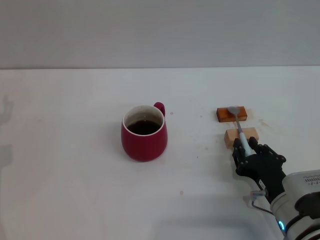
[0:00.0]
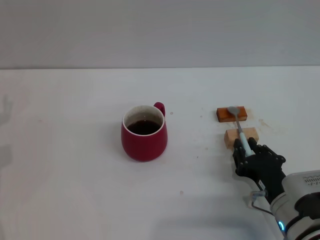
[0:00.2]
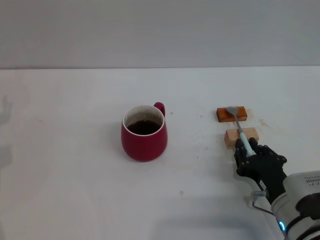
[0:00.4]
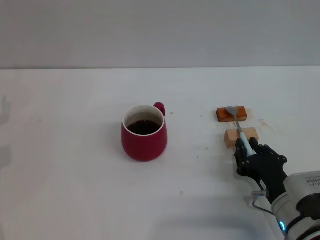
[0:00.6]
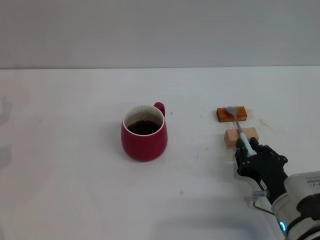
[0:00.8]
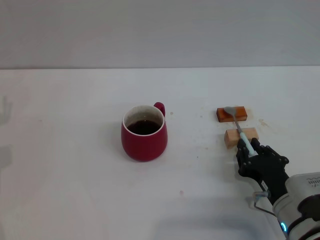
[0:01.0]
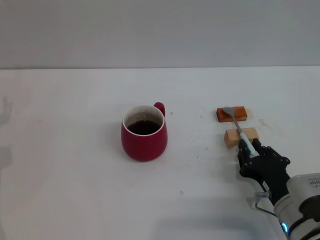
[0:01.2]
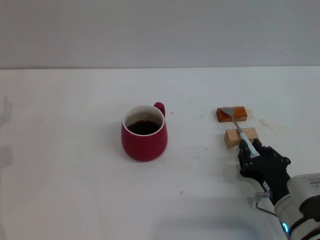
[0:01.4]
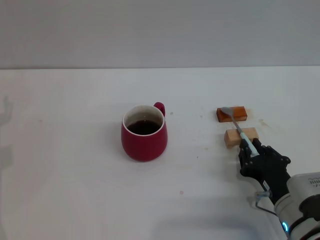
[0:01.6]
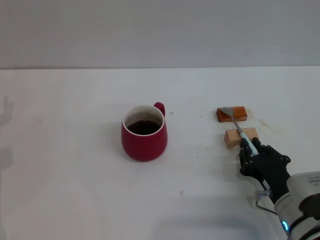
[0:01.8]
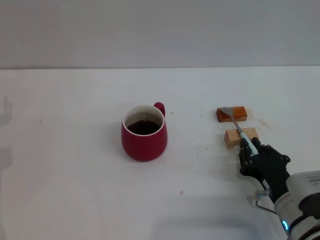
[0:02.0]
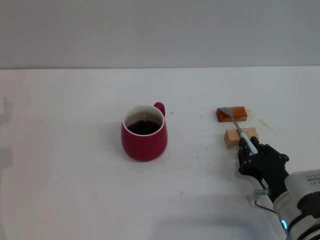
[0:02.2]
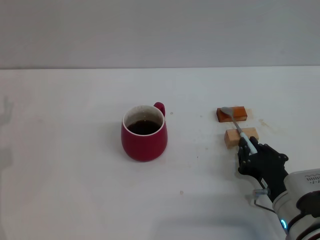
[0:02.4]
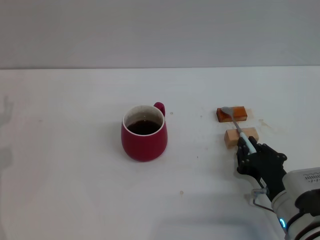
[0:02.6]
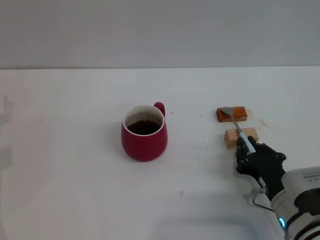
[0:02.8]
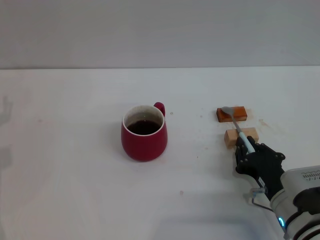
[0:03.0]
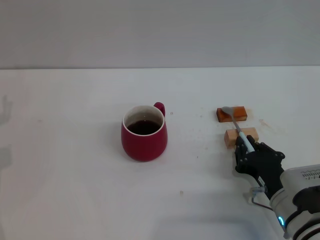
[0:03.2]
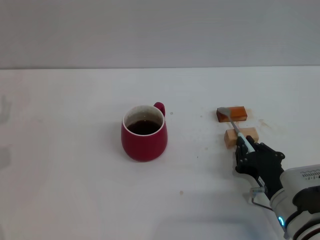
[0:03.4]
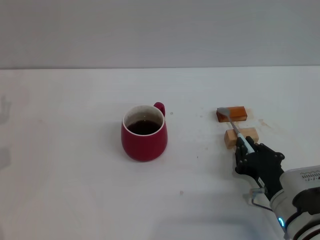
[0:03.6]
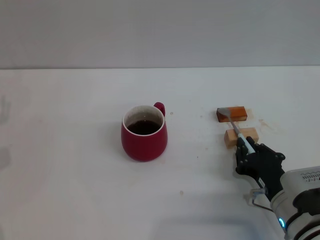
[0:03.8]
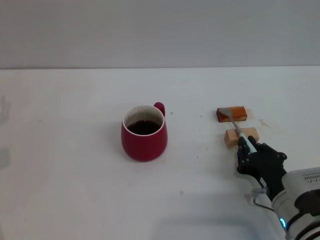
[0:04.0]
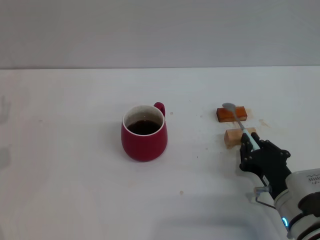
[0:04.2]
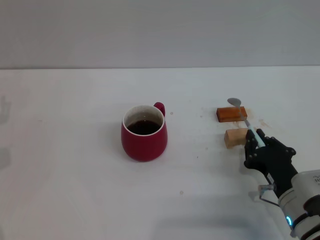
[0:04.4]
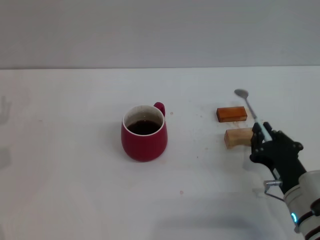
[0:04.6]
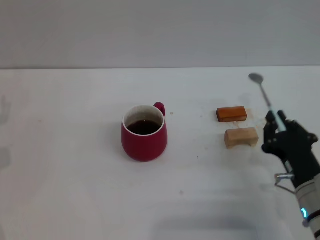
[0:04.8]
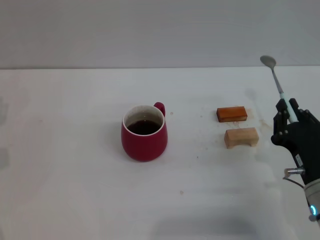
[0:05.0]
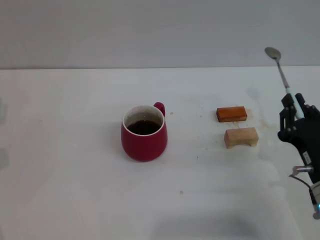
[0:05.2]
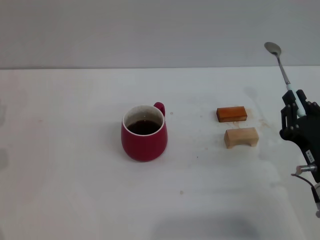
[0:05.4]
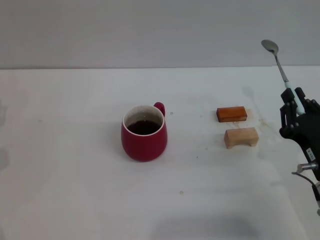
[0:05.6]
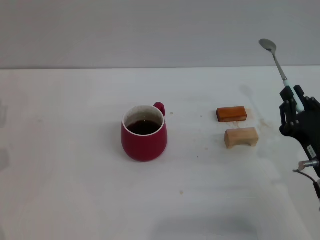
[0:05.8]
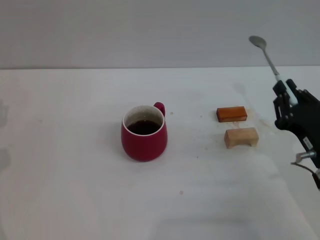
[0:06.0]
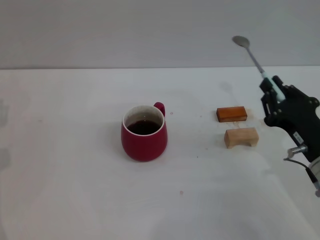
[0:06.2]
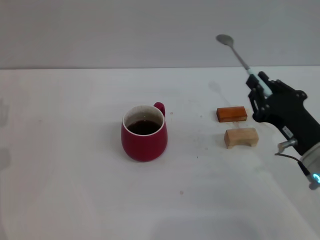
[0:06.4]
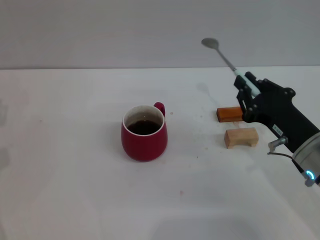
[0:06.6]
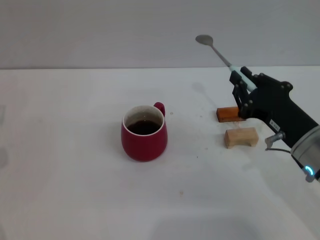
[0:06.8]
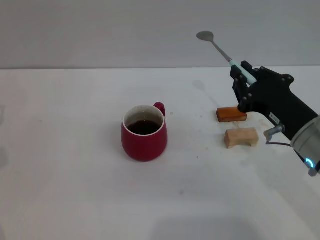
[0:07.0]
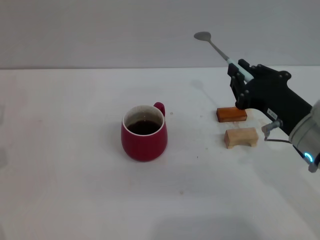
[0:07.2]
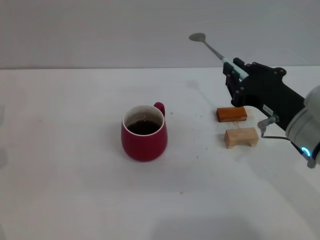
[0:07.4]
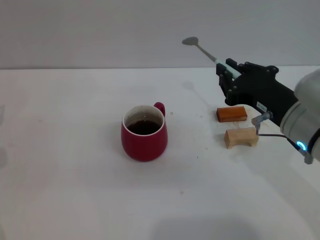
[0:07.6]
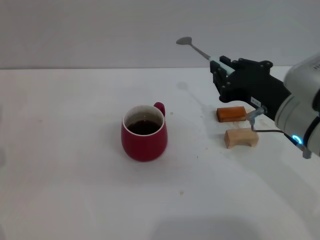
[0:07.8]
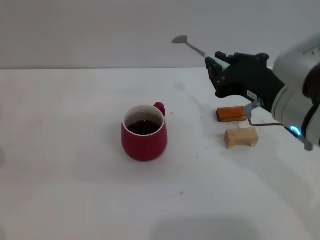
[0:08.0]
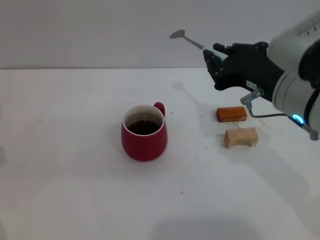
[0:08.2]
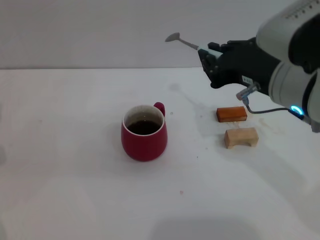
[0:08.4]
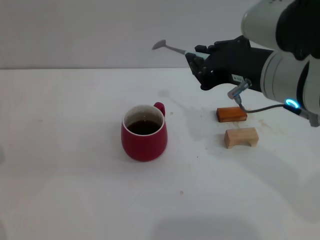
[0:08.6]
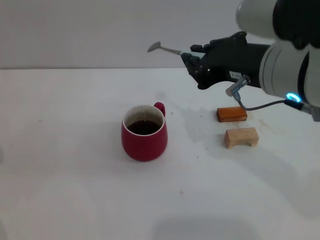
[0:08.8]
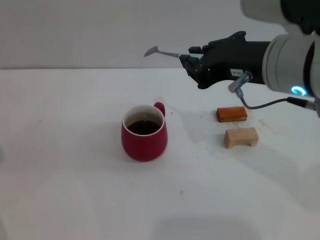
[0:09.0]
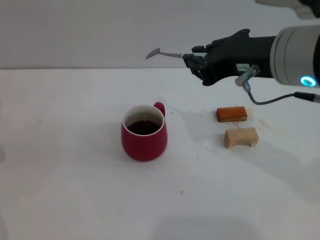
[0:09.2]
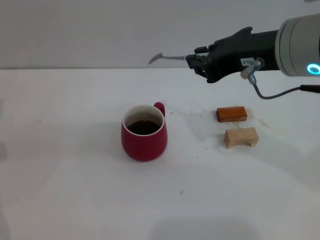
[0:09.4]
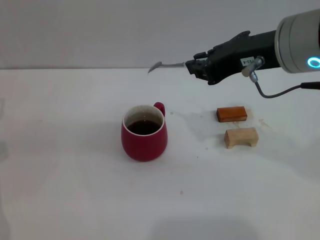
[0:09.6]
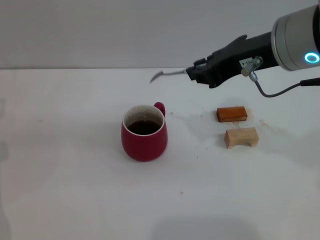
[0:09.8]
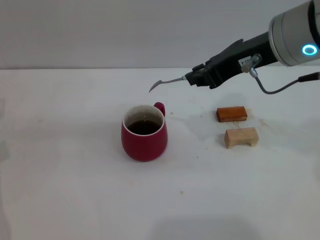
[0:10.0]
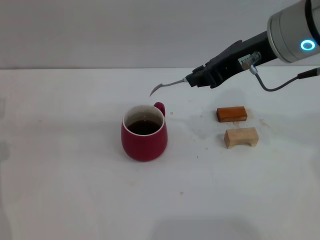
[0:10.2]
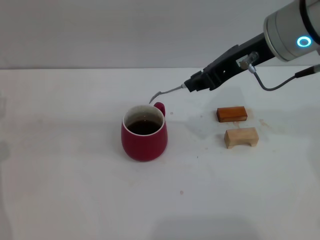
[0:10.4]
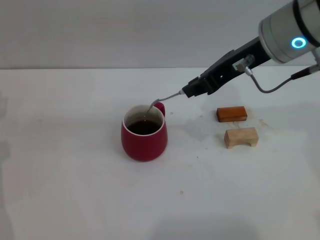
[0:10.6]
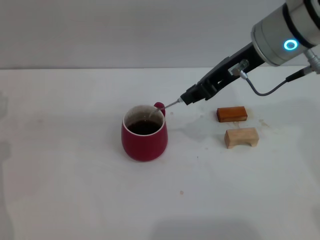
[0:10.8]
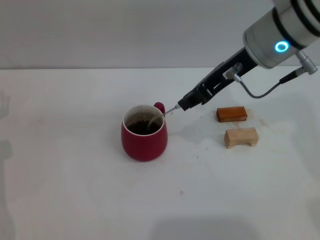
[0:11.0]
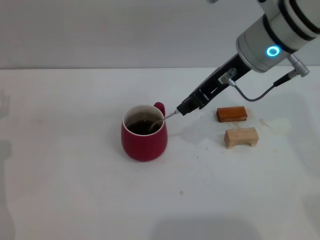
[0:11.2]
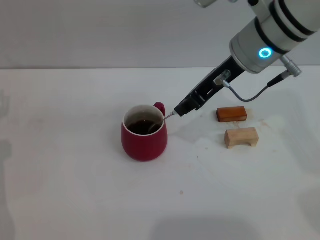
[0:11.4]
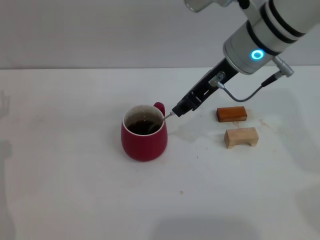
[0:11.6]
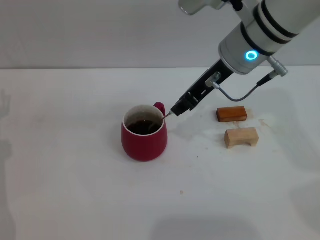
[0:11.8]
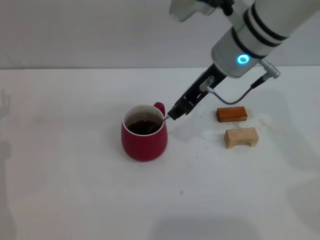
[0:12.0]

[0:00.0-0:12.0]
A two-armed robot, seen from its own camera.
Task of the whole recording: Move the red cup to the center, lift the blue spoon, stir it three times in the cup, and put the spoon into the cup.
Step, 0:00.0 to 0:03.8: Grasp the spoon with right gripper.
0:00.0 to 0:03.0: Both grippers stay about where they are.
0:03.0 to 0:04.4: The grippers make only small movements.
0:04.4 to 0:06.0: The right gripper travels upward by approximately 5 cm.
0:06.0 to 0:07.6: The right gripper goes roughly 10 cm upward and to the left.
0:07.6 to 0:09.0: The right gripper travels upward by some 10 cm.
0:09.0 to 0:10.4: The right gripper shifts about 10 cm forward.
0:10.4 to 0:12.0: The right gripper heads downward and to the left, covering some 5 cm.

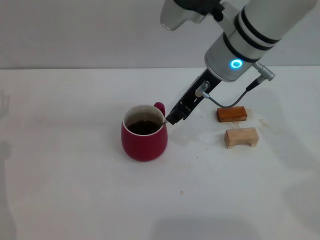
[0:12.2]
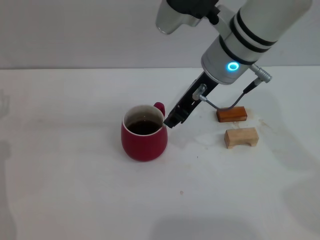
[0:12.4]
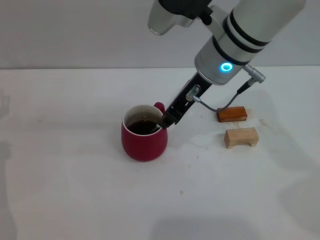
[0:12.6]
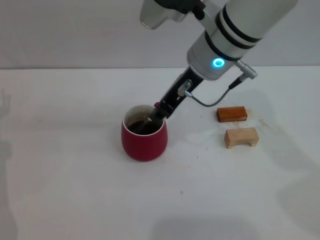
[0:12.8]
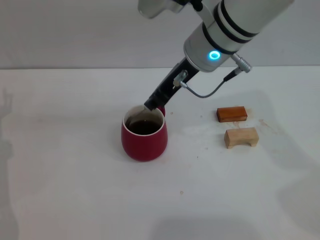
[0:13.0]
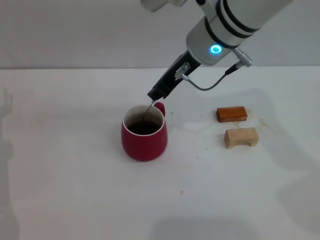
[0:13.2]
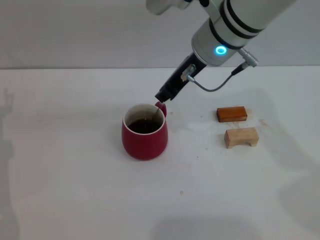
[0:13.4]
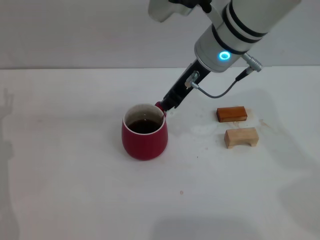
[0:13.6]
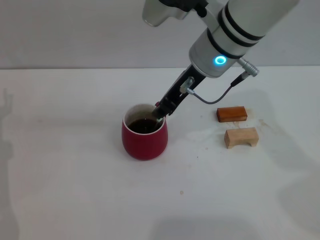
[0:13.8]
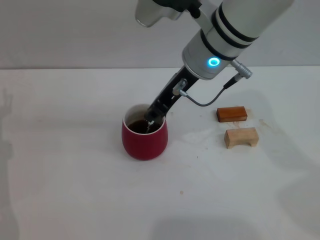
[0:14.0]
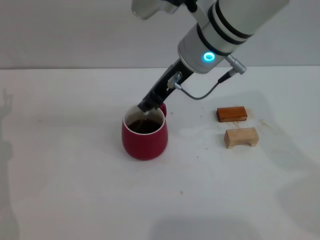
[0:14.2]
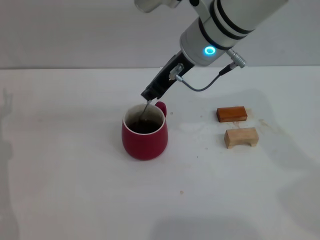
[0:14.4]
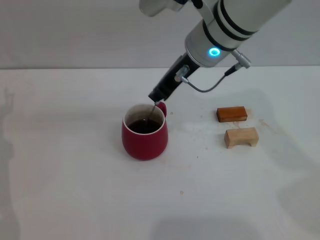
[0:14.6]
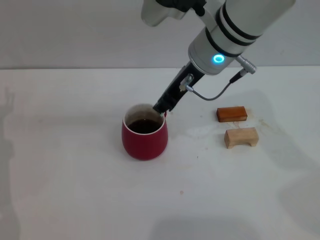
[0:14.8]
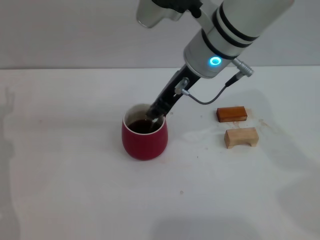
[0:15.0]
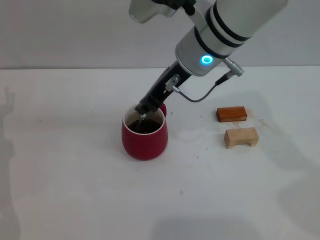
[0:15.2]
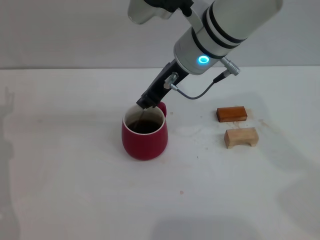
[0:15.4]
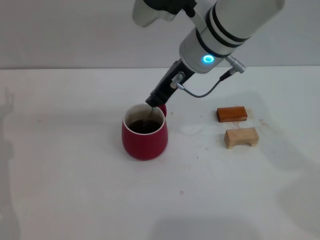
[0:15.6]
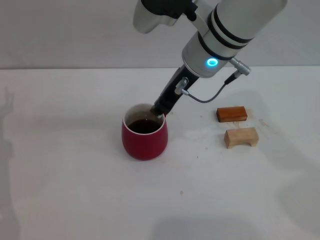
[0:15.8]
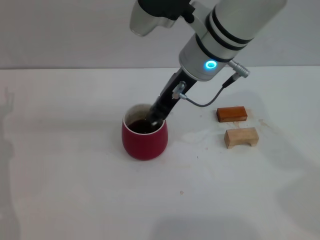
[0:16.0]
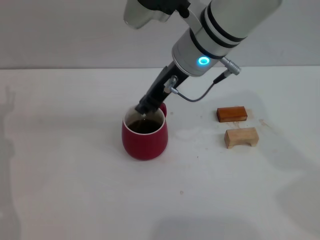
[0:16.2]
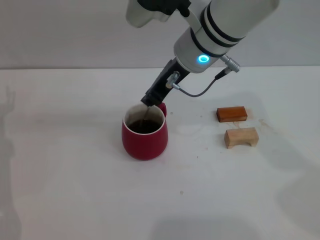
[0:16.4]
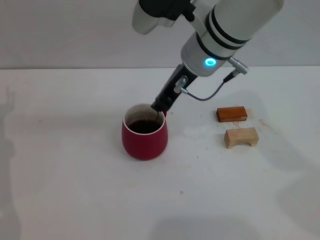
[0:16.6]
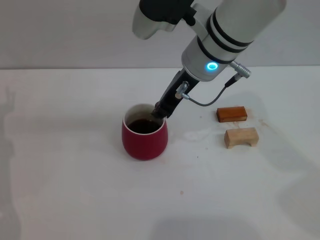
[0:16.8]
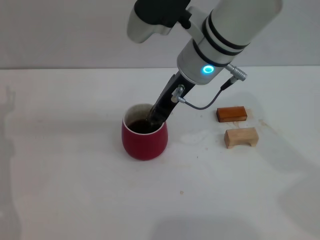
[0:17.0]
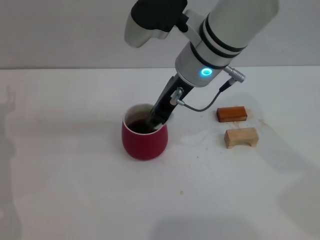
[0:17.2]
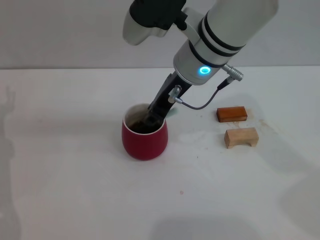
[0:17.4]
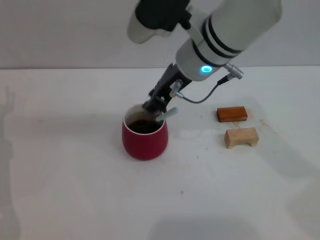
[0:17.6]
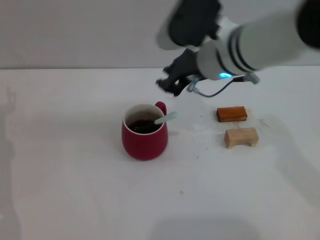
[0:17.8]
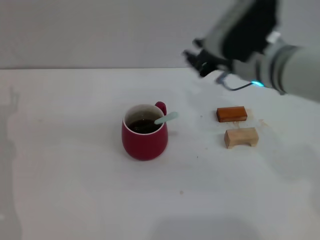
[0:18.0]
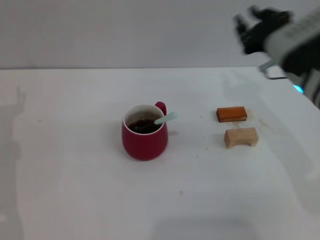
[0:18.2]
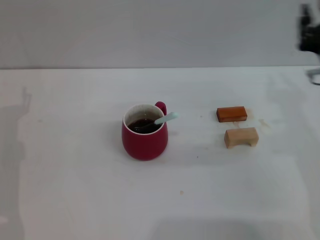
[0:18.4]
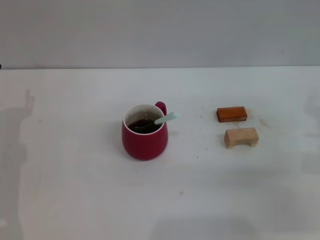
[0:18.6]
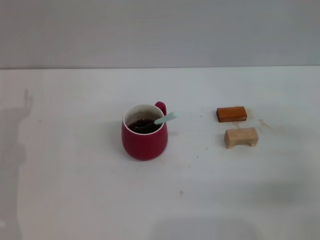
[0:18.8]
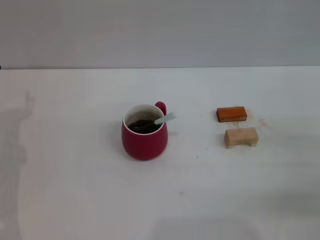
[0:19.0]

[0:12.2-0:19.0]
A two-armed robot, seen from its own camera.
Task of the whole recording: Move the red cup to the center, lift the blue spoon, stir it three times in the cup, and put the spoon into the cup.
Step, 0:12.2 to 0:17.6: Stir the coffee with right gripper.
0:12.2 to 0:17.6: There are only small adjustments of the grippers.
0:17.6 to 0:19.0: The right gripper is displaced to the right, downward and backward by approximately 35 cm.
